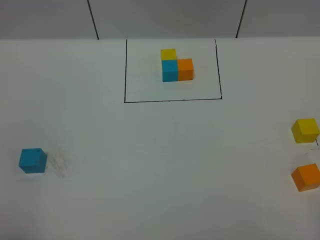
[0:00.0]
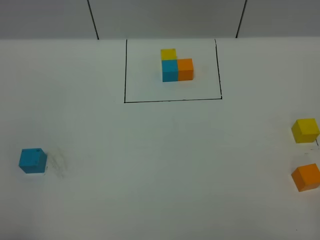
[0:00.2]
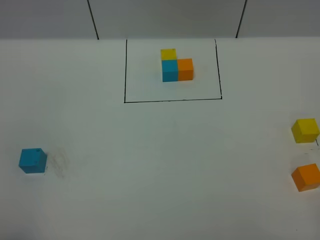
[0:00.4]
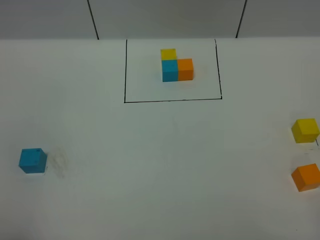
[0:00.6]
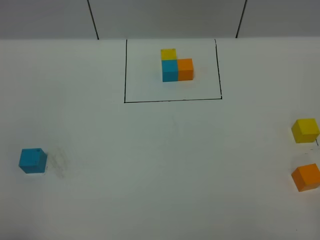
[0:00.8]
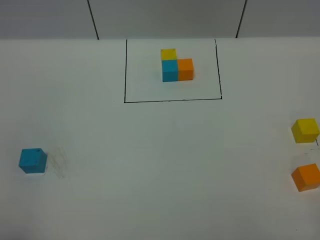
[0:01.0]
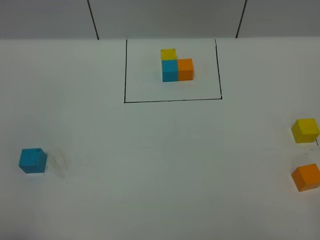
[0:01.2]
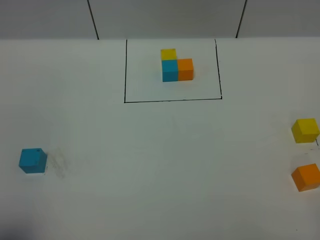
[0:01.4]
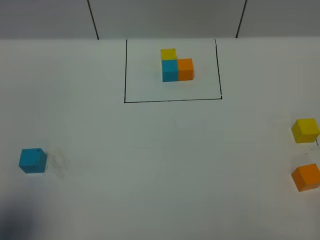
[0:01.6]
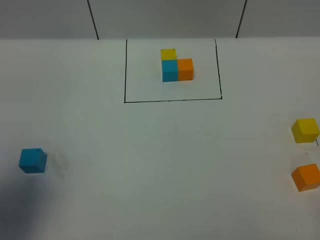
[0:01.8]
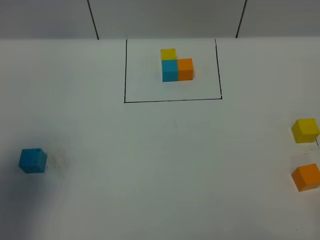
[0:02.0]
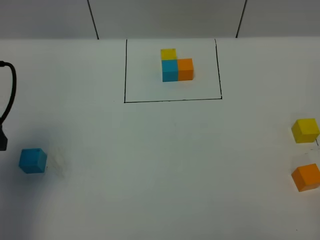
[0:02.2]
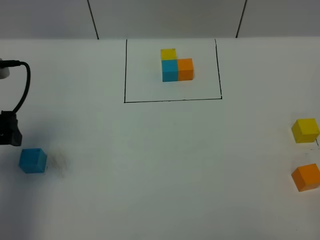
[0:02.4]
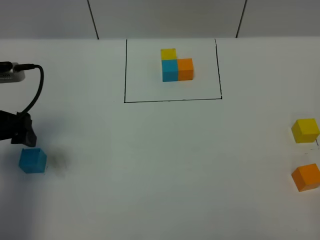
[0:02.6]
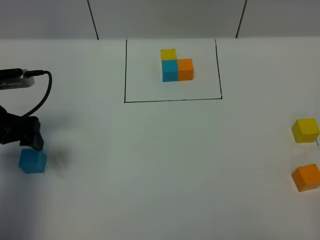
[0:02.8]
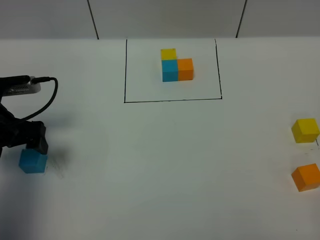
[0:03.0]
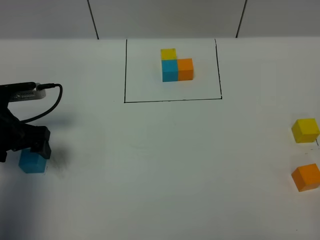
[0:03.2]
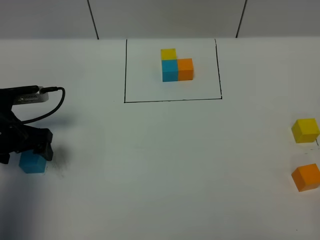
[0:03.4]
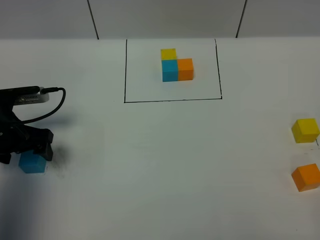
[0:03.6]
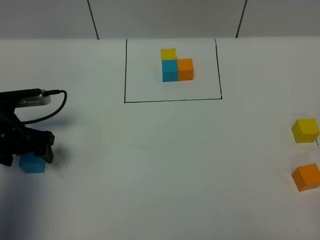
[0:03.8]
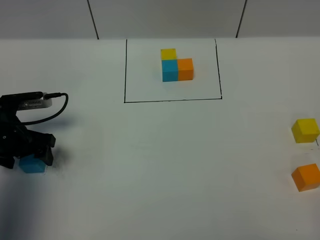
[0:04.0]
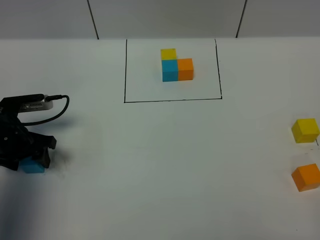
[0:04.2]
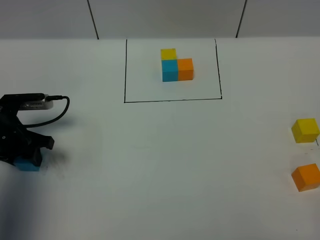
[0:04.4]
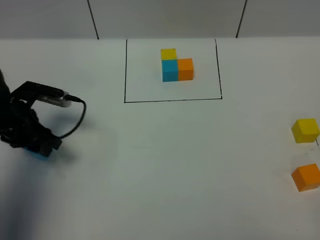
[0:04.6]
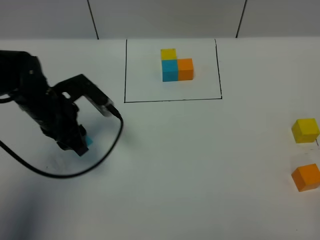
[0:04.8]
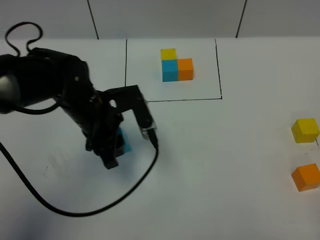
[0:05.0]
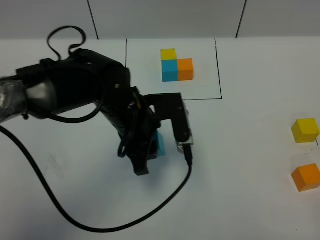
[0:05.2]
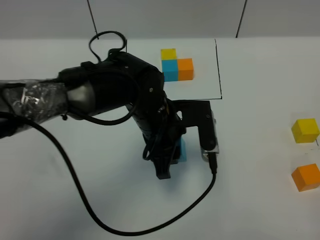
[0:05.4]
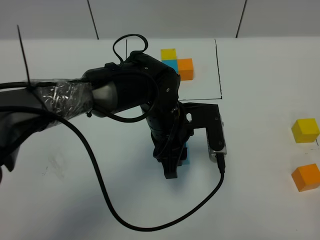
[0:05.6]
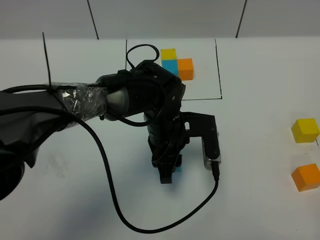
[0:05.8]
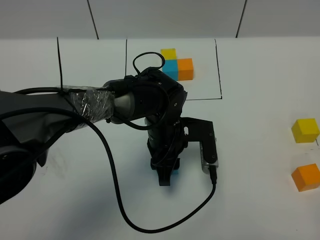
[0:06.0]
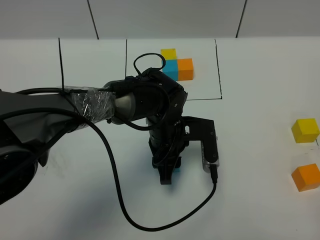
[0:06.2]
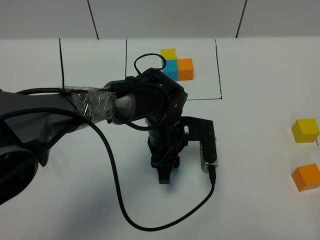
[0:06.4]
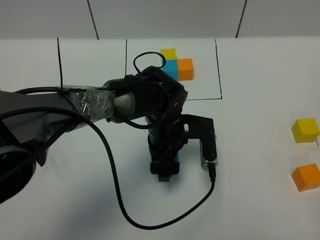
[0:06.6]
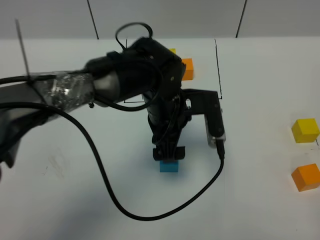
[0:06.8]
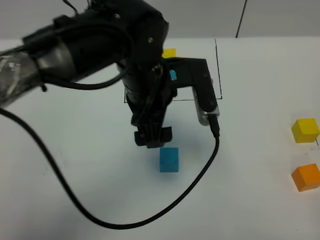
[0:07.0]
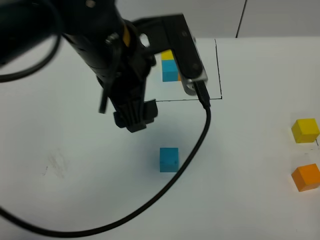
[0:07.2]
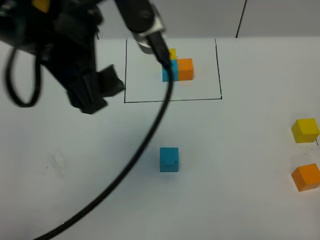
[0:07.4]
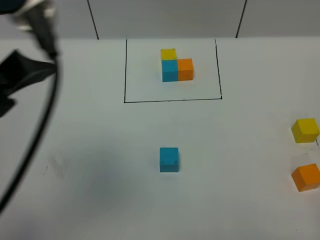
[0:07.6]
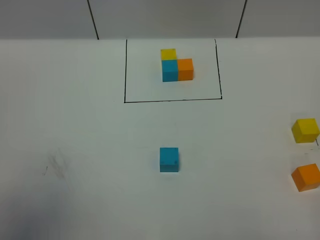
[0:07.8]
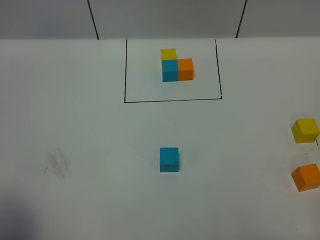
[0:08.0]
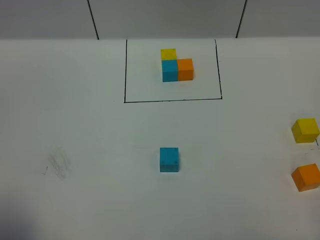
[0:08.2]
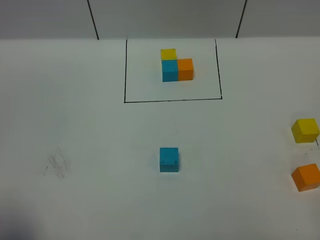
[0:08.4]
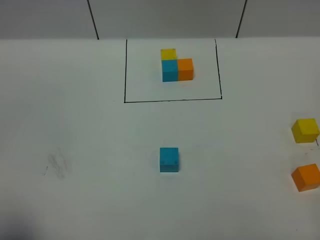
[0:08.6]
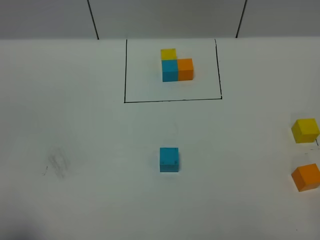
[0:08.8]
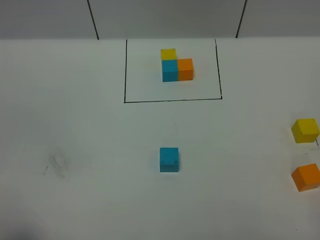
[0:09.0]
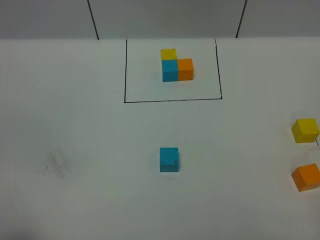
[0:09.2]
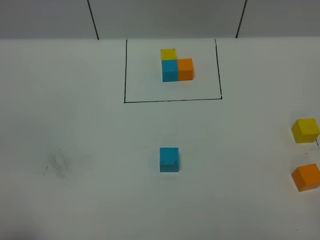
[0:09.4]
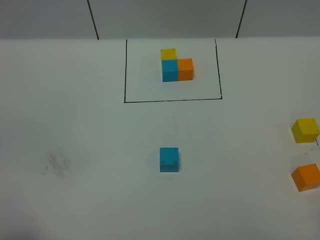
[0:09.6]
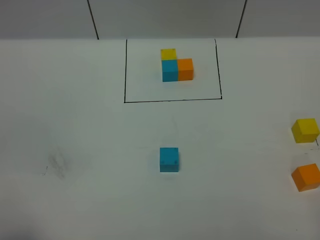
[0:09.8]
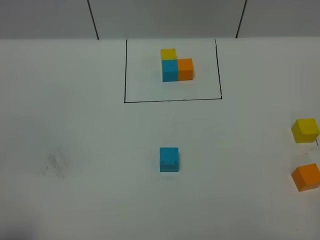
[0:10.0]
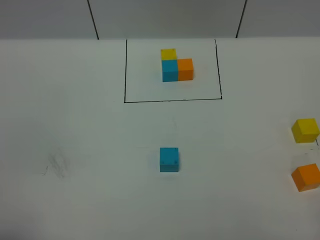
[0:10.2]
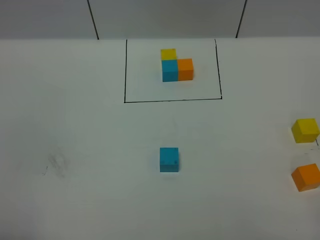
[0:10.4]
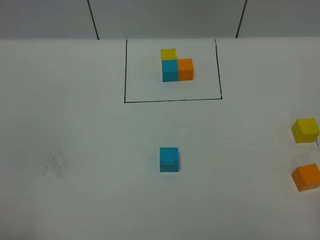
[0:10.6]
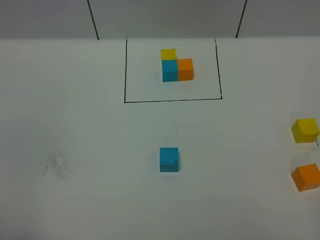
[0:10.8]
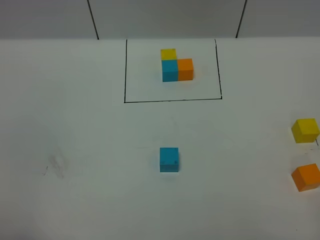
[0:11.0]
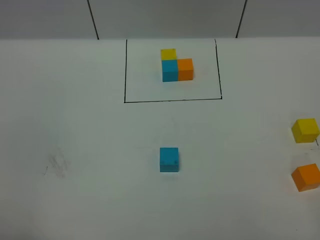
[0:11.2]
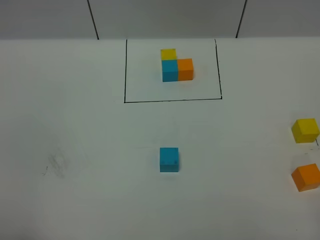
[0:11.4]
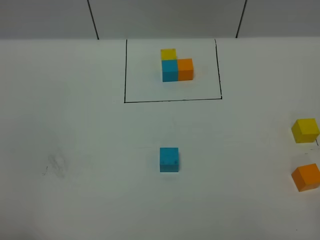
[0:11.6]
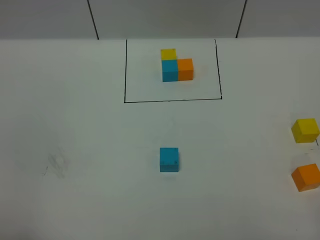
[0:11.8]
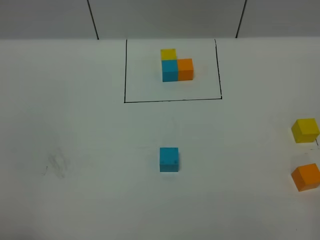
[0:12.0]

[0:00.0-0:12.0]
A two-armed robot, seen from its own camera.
Task of the whole recording: According to the building block template in front, assemble the scattered blocks together.
Step, 0:02.2 to 0:06.6: Put the blue cube in the center of the table.
0:00.0 to 0:01.6: The left gripper travels forward and upward by some 10 cm, and opens its fingers.
0:01.6 to 0:03.0: The left gripper travels forward and downward by about 25 cm, and opens.
0:03.0 to 0:04.4: The left gripper heads downward, covering some 5 cm, and closes up.
0:04.4 to 0:06.0: The left gripper shifts about 30 cm to the right.
0:06.0 to 0:07.6: The left gripper moves upward, to the left and backward, about 40 cm, and opens.
0:07.6 to 0:09.0: The left gripper is displaced downward, backward and to the left by approximately 25 cm.

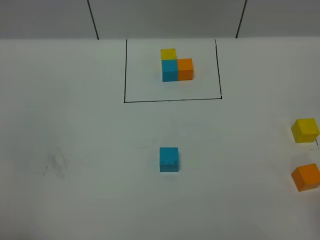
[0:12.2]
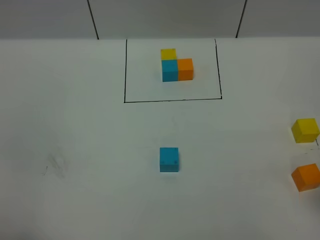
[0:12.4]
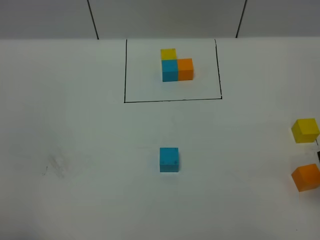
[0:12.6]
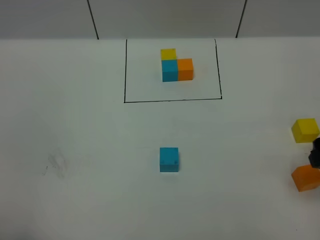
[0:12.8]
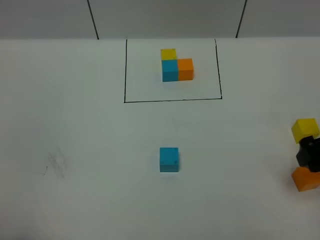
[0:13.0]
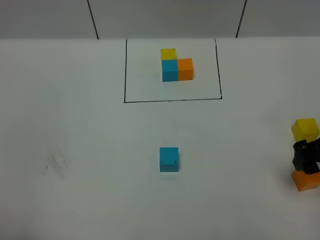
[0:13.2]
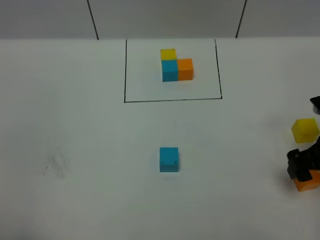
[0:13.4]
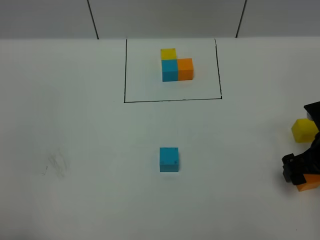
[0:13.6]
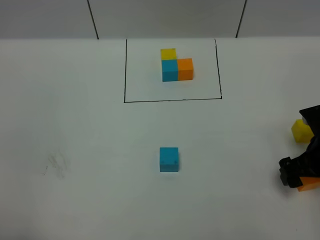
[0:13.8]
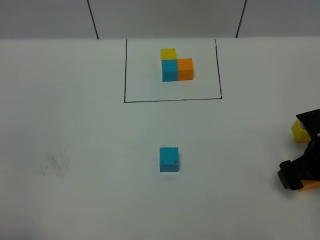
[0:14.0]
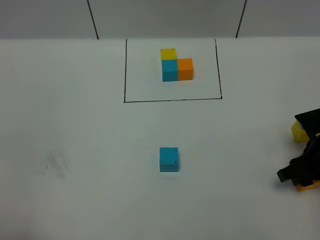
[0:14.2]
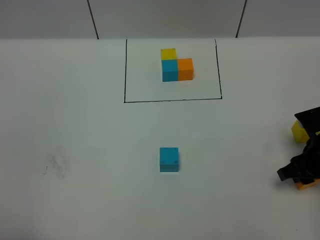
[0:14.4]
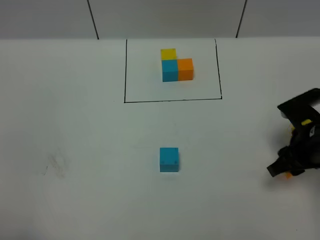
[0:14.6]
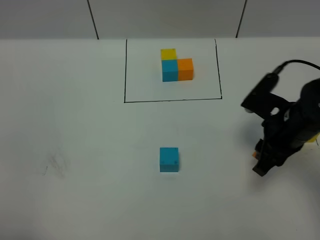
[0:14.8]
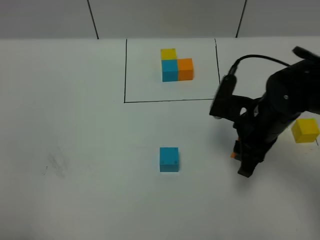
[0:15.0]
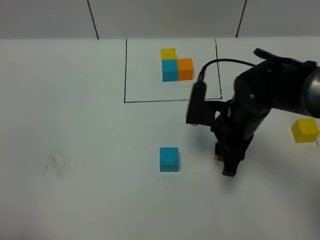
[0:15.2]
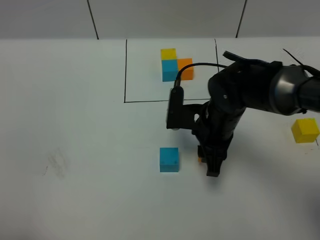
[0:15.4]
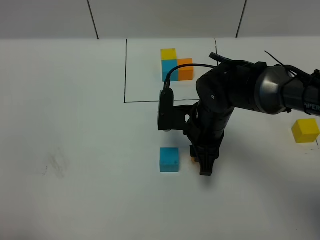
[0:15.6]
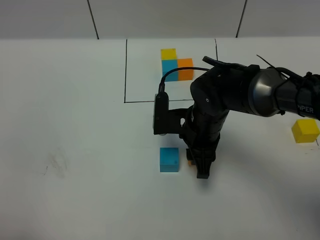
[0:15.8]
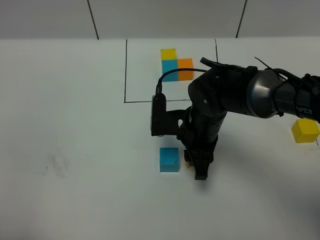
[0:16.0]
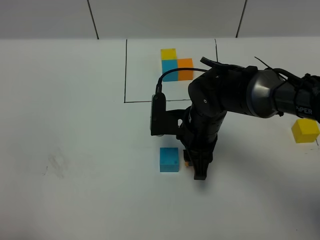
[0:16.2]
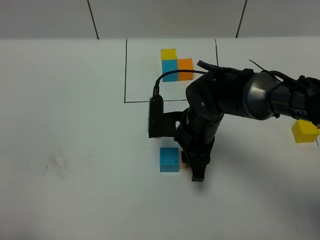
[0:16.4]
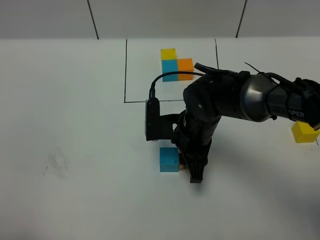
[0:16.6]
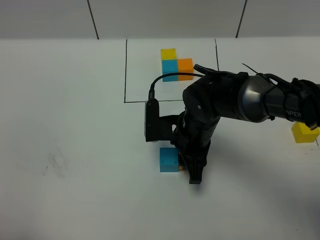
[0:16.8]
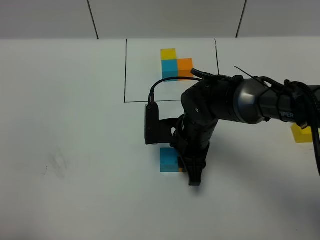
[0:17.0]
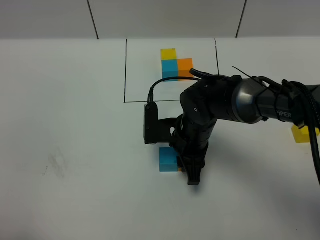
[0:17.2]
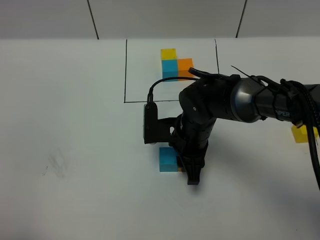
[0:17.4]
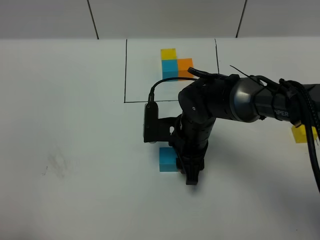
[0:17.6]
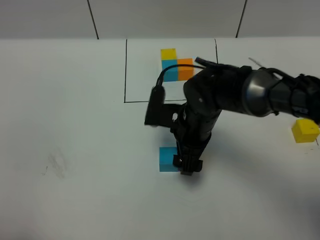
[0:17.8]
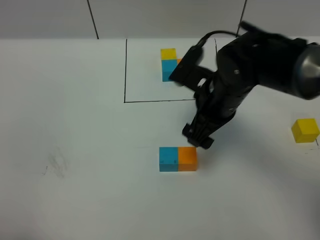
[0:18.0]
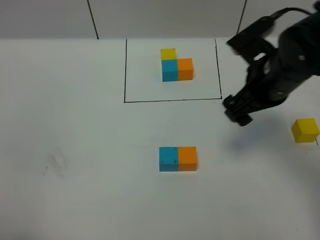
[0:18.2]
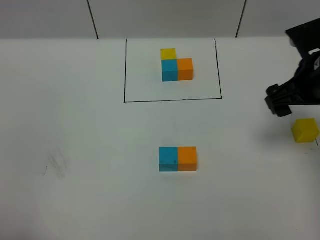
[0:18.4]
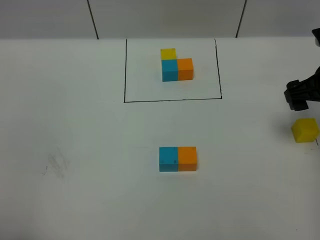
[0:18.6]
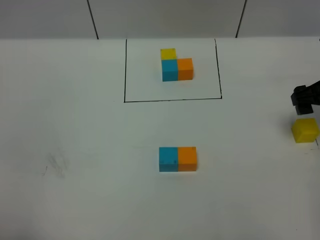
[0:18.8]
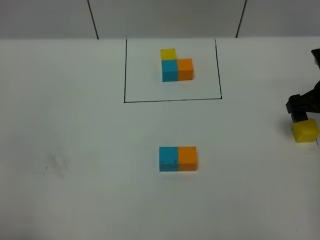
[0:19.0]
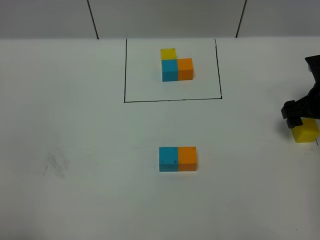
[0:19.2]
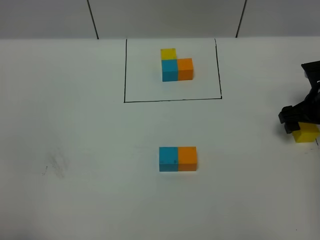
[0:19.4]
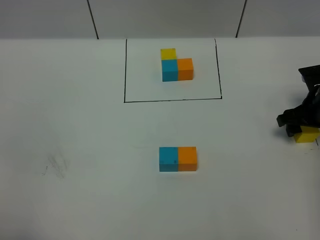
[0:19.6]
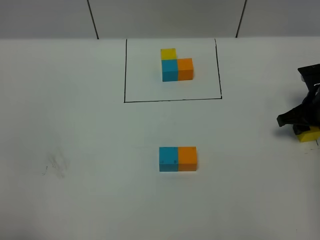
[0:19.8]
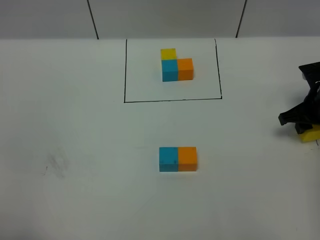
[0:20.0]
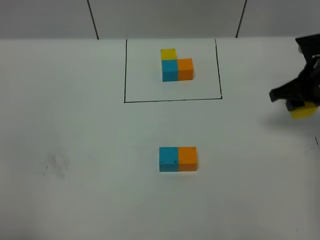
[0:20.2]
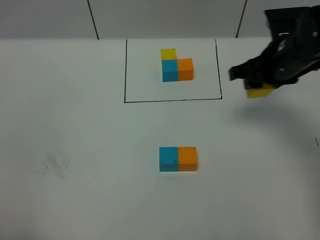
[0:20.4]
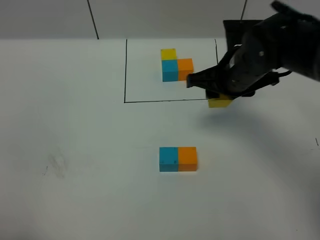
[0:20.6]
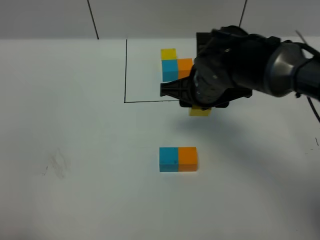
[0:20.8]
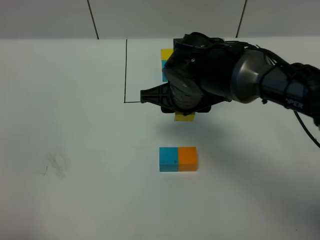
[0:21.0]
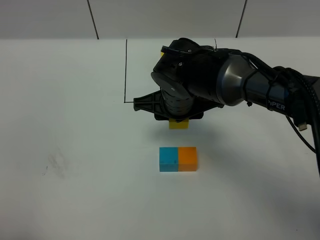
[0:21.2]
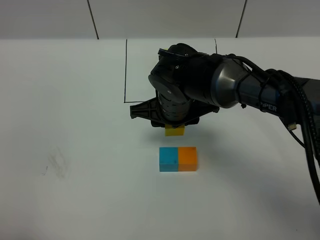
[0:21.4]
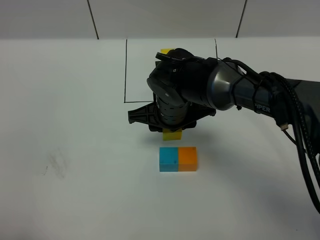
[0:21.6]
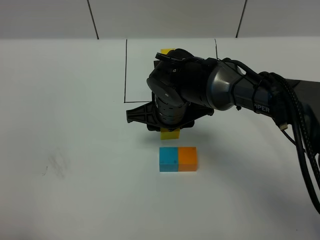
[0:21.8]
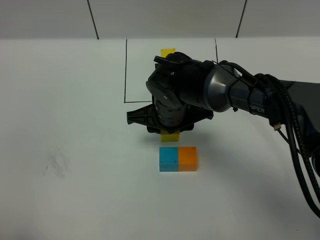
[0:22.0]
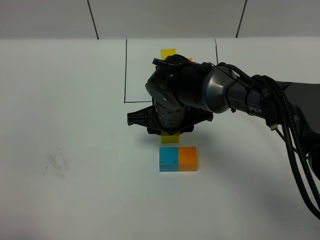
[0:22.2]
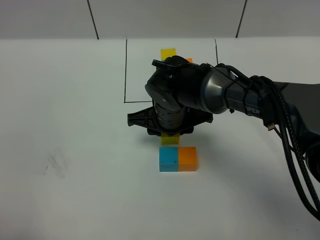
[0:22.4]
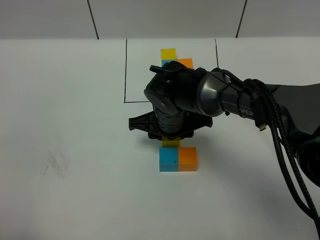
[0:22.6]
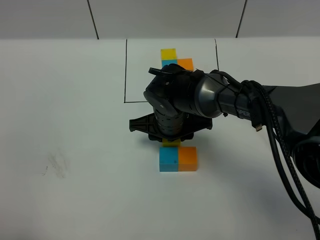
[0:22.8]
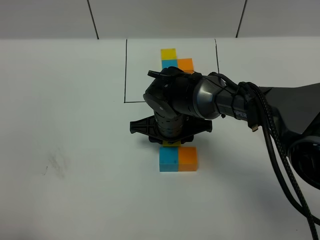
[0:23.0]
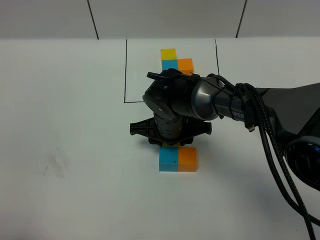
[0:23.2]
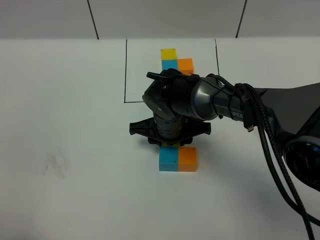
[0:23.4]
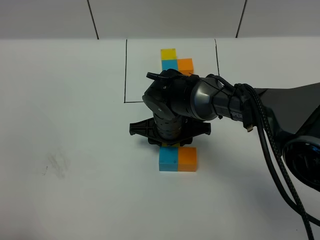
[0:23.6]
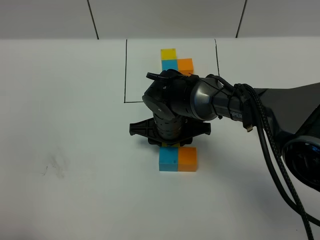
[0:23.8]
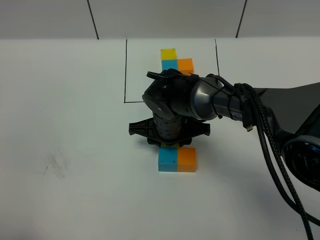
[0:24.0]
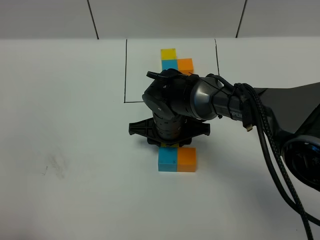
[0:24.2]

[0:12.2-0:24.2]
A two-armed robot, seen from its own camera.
Task of the whole recording: According to the building block template in front, assemble the scattered blocks together.
Step, 0:12.2 to 0:17.8: Put the orange cube on the right of the blue cube.
0:12.2 to 0:13.8: The right gripper is displaced downward and forward by approximately 20 cm, and opens.
0:13.8 to 0:15.2: The right gripper heads to the left, covering approximately 15 cm, and closes.
0:15.2 to 0:16.6: The right gripper goes roughly 5 cm to the left.
0:16.6 to 0:18.2: The right gripper goes some 15 cm to the right and upward, and opens.
0:18.2 to 0:19.8: The right gripper shifts some 20 cm downward and to the right, and closes its fingers.
0:19.8 to 0:21.2: The right gripper shifts approximately 30 cm to the left.
0:21.2 to 0:22.6: The right gripper shifts roughly 5 cm downward.
0:22.6 to 0:24.2: The grippers make only small movements.
